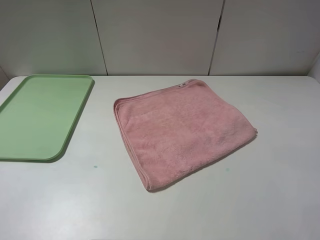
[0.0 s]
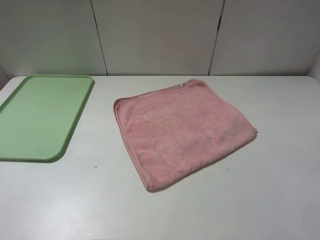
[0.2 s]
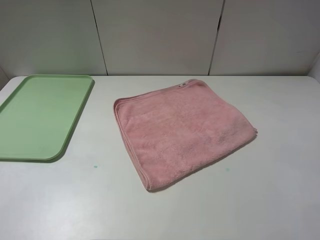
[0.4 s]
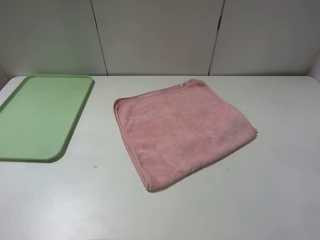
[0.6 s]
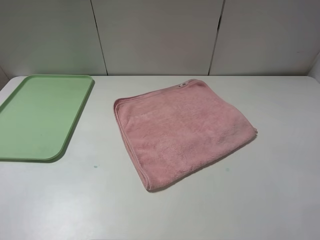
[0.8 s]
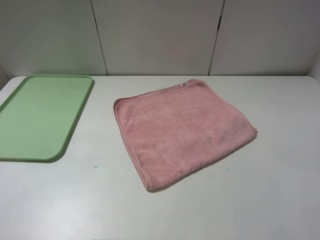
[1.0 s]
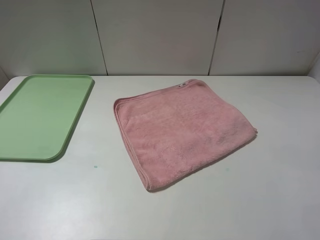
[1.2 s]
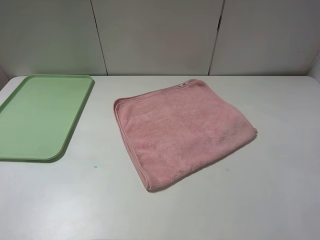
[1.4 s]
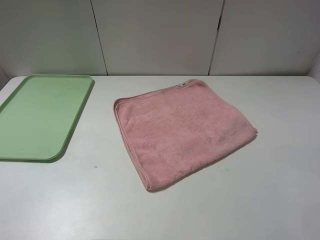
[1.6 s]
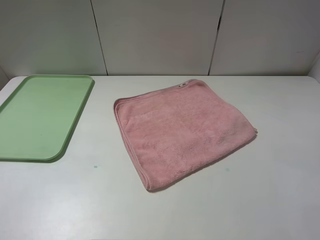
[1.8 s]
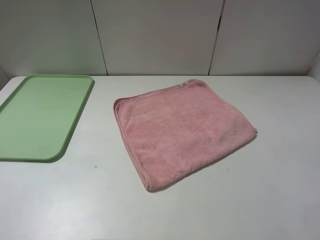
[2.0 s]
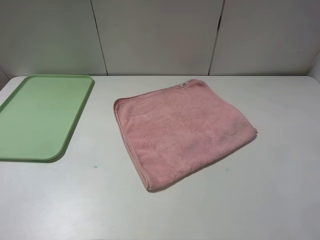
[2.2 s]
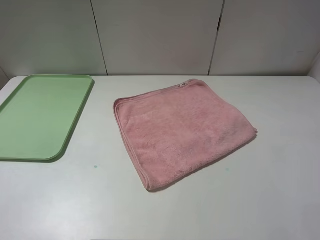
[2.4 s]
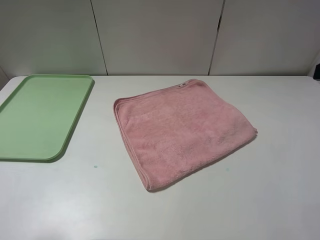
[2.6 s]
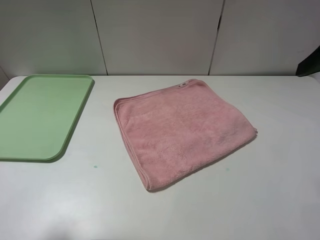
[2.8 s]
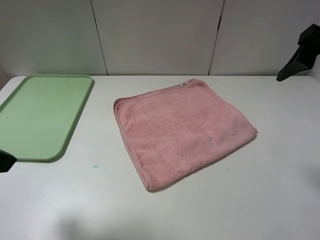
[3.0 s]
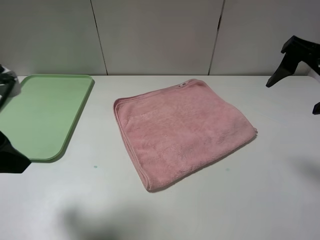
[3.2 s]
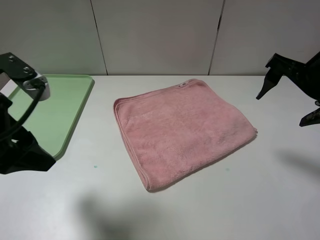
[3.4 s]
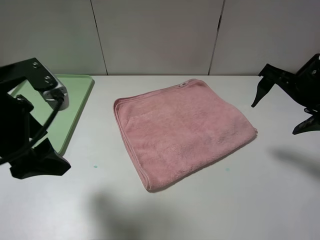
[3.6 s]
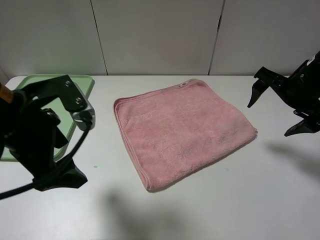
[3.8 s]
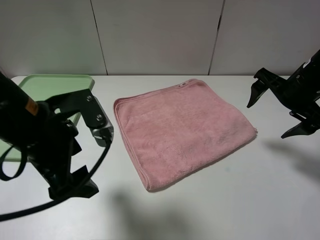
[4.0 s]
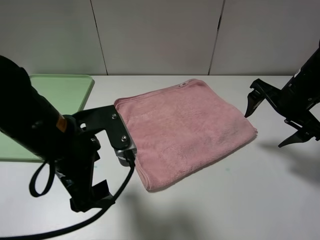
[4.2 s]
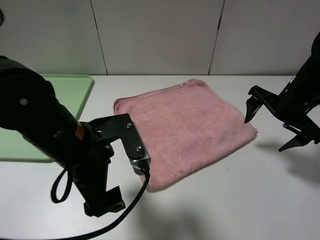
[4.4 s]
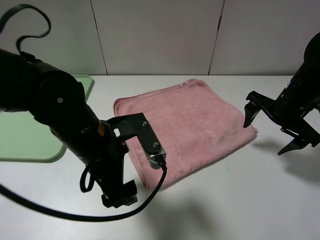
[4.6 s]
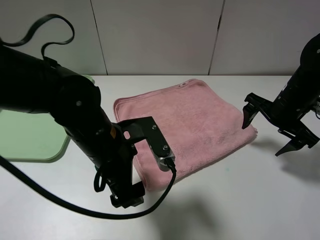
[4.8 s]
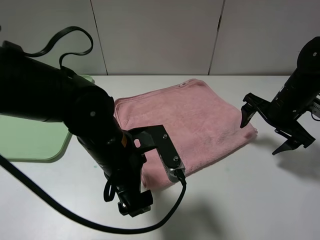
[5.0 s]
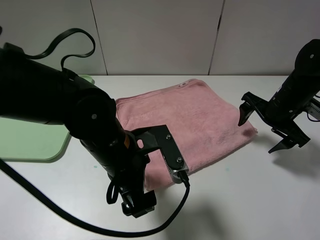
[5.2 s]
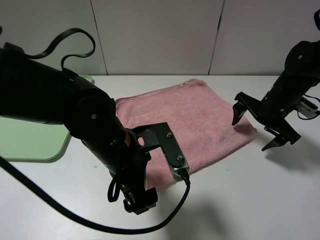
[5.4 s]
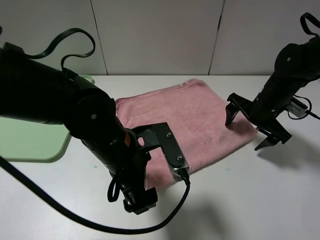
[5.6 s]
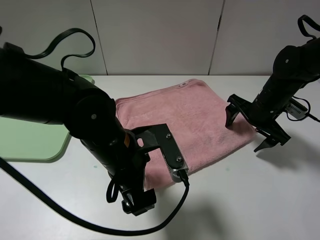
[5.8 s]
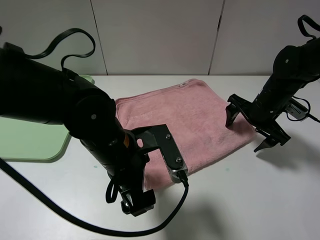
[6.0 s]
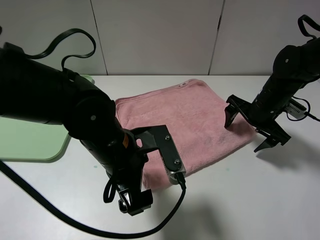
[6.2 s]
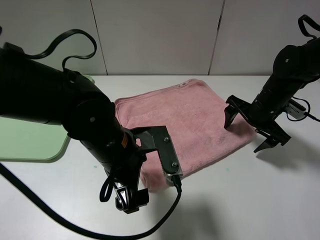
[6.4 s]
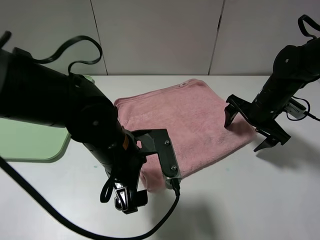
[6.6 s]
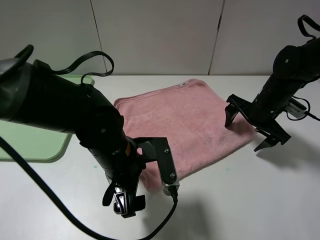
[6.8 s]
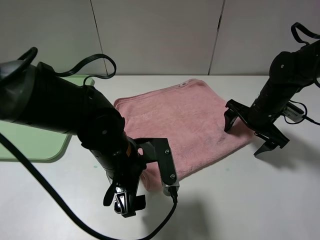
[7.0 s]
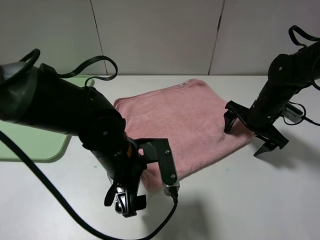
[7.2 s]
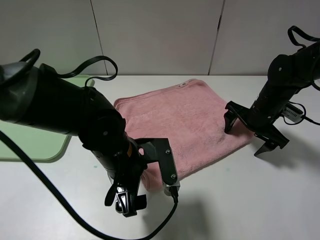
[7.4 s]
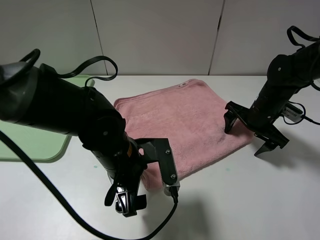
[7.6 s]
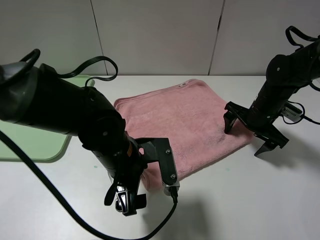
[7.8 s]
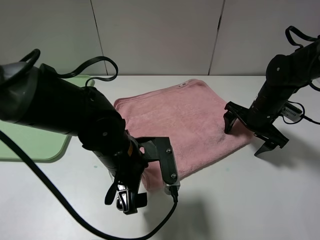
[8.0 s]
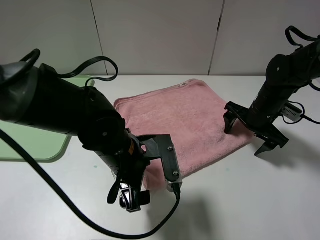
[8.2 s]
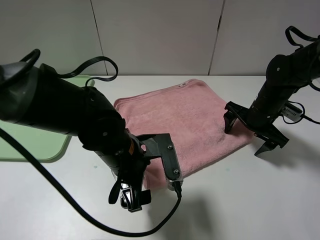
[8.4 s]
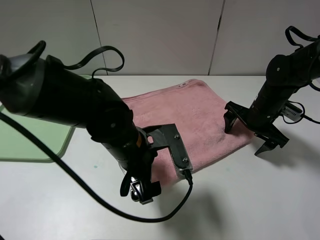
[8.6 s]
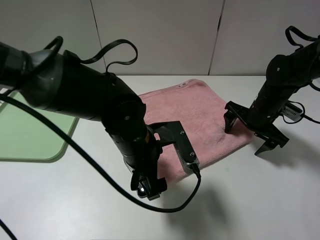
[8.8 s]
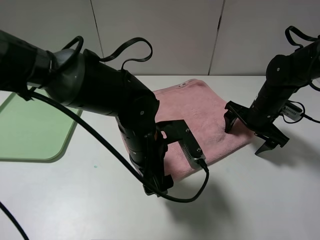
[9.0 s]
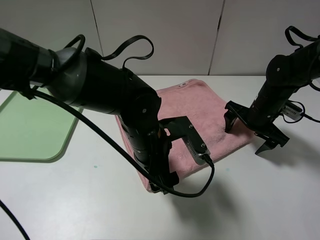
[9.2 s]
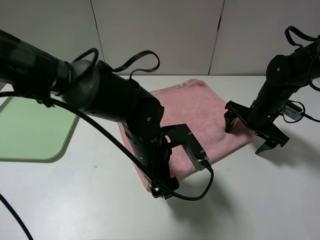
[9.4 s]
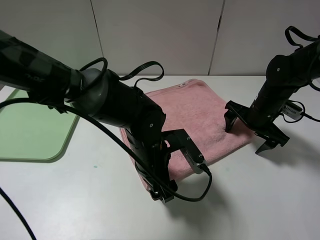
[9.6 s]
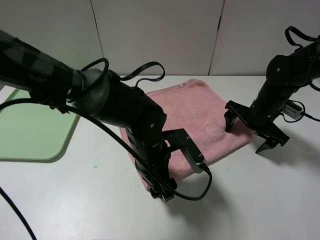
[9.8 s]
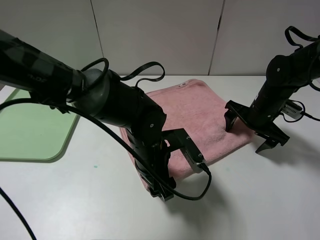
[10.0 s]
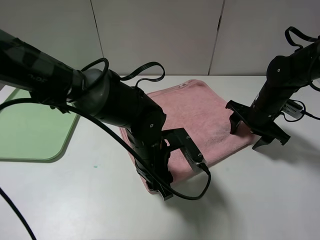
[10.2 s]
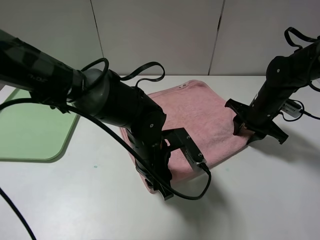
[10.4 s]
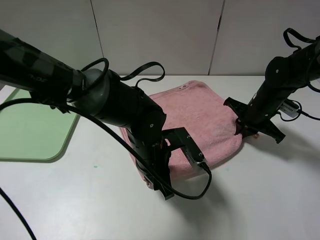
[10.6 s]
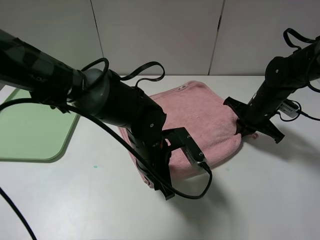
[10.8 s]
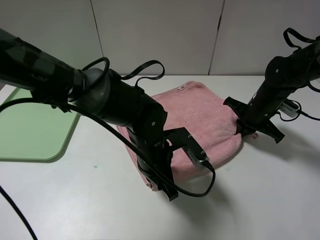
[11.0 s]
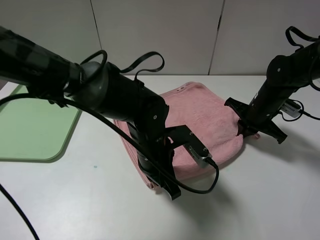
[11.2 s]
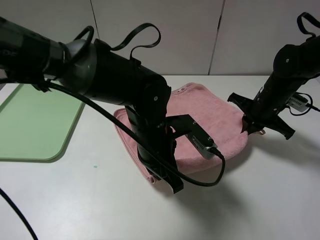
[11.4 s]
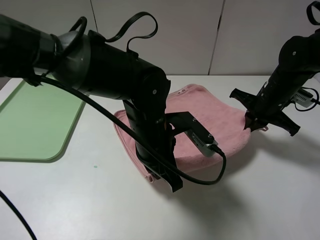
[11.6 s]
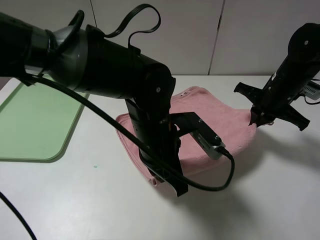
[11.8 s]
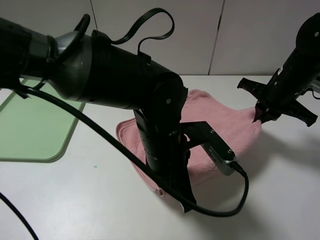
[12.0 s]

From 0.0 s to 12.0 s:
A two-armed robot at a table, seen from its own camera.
From 0.0 s to 1.6 s: Neither gripper changes place.
From 1.6 s to 3.0 s: The left gripper travels forward by about 15 cm, while the right gripper moves forward, approximately 20 cm.
From 3.0 s to 4.4 s: The left gripper heads to the right and downward, covering roughly 20 cm. Meanwhile the right gripper shifts about 15 cm downward and forward.
From 4.4 s to 6.0 s: The right gripper is displaced downward by about 5 cm. Meanwhile the left gripper shifts roughly 5 cm to the right.
From 6.0 s to 7.6 s: The grippers stay close to where they were, moving slightly.
From 7.6 s to 9.0 s: The left gripper ends up some 5 cm from where it was.
From 9.0 s to 10.4 s: The left gripper closes. Meanwhile the right gripper closes up.
From 10.4 s to 12.0 s: Both grippers move upward, approximately 10 cm. The right gripper closes its fingers. The left gripper closes.

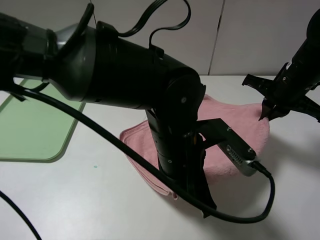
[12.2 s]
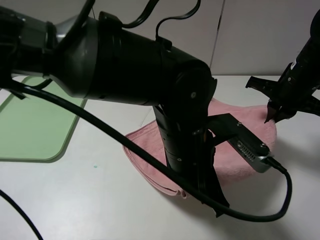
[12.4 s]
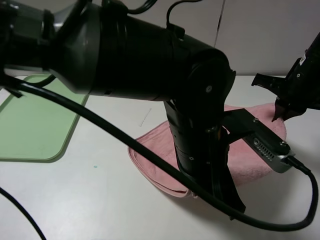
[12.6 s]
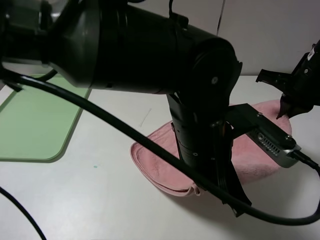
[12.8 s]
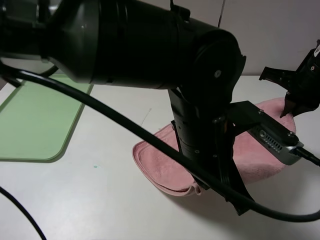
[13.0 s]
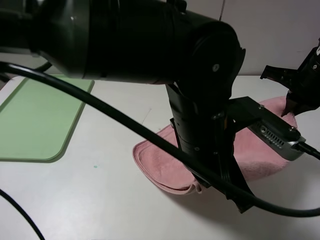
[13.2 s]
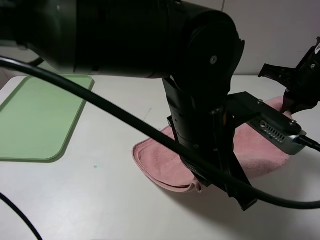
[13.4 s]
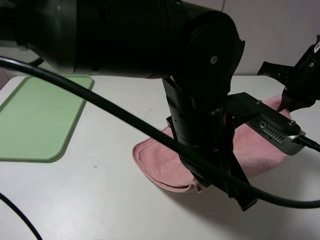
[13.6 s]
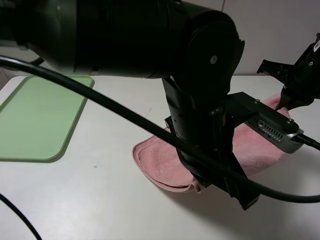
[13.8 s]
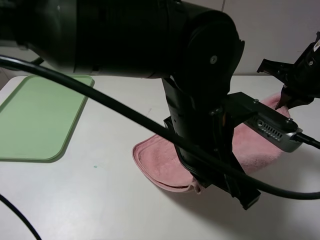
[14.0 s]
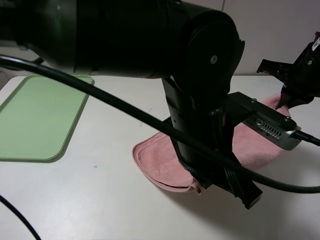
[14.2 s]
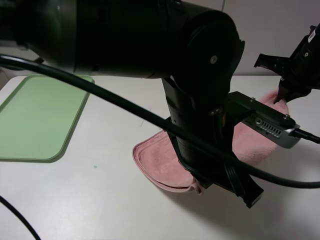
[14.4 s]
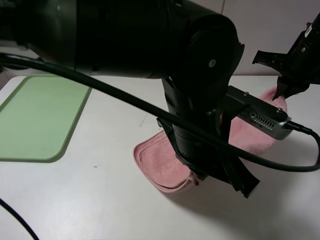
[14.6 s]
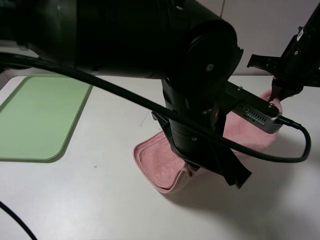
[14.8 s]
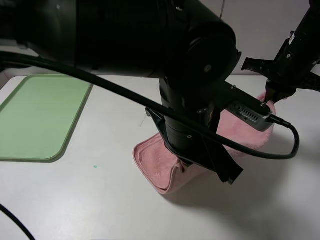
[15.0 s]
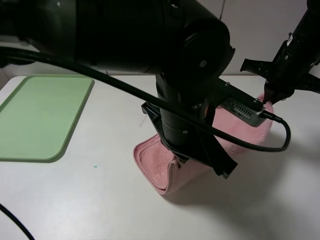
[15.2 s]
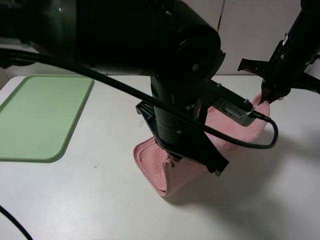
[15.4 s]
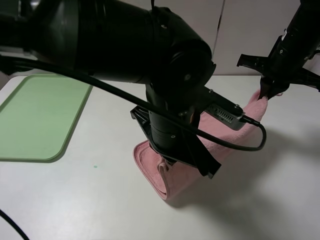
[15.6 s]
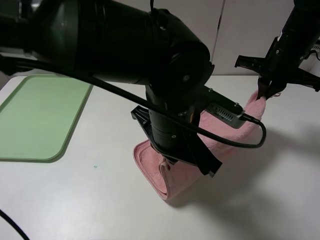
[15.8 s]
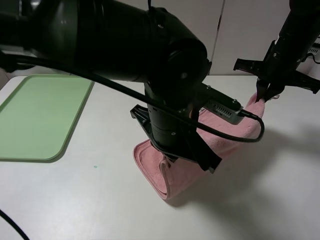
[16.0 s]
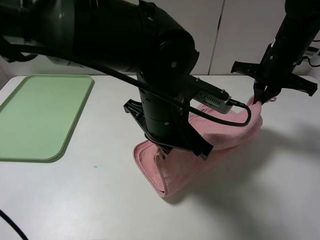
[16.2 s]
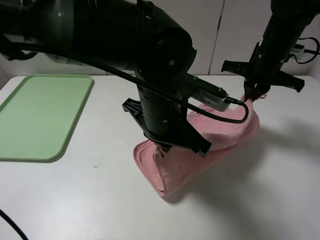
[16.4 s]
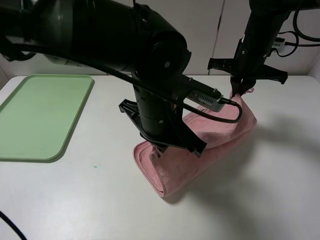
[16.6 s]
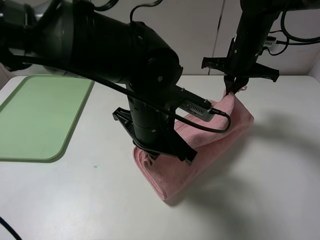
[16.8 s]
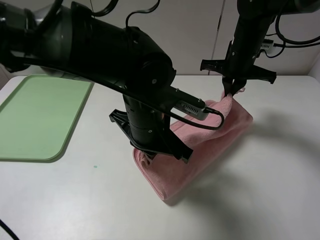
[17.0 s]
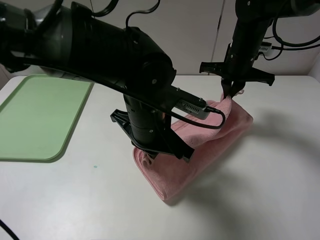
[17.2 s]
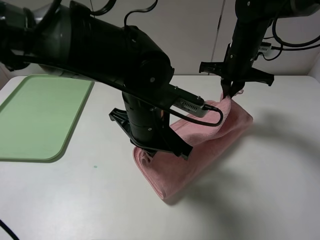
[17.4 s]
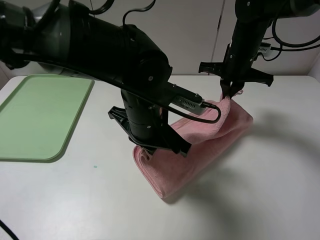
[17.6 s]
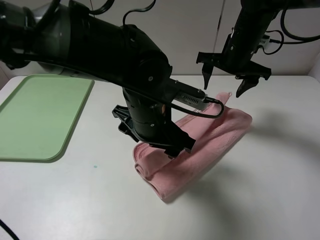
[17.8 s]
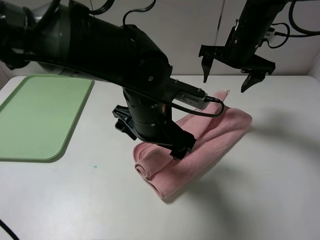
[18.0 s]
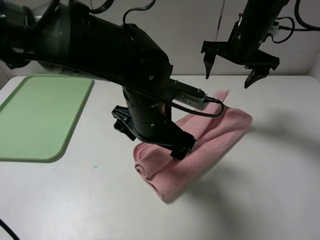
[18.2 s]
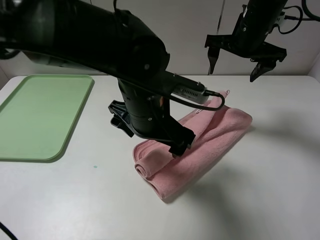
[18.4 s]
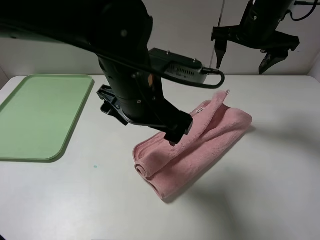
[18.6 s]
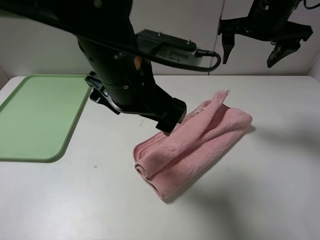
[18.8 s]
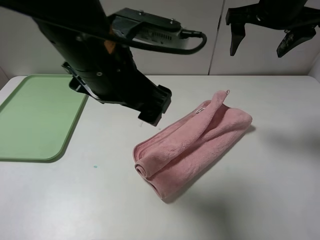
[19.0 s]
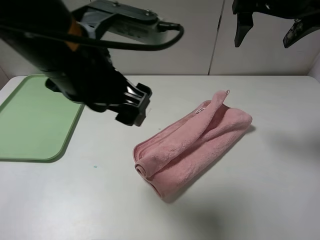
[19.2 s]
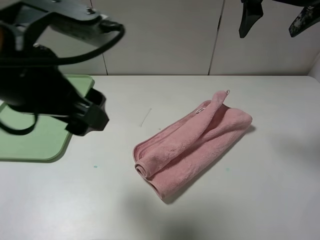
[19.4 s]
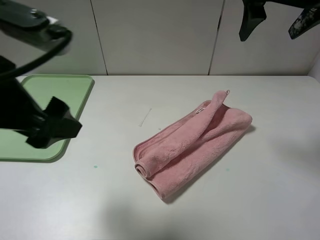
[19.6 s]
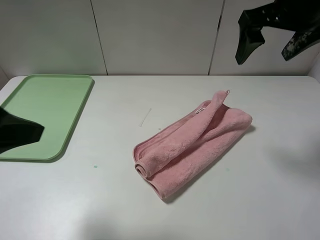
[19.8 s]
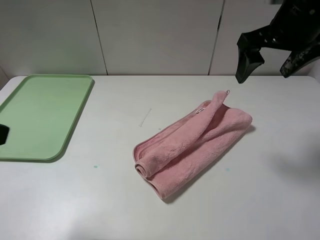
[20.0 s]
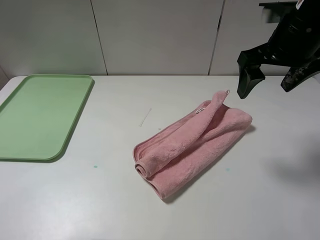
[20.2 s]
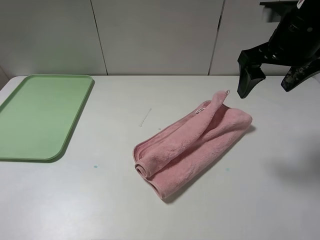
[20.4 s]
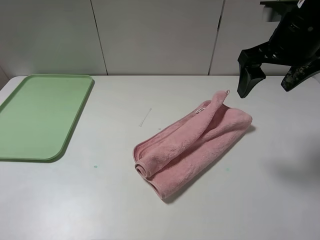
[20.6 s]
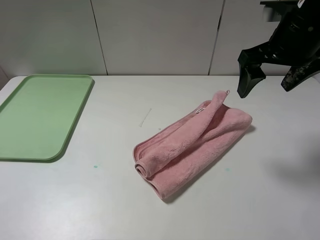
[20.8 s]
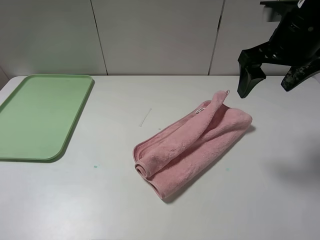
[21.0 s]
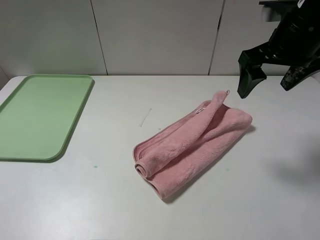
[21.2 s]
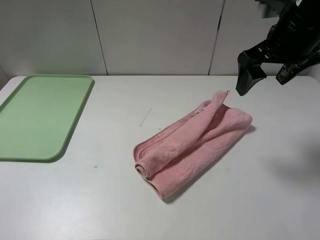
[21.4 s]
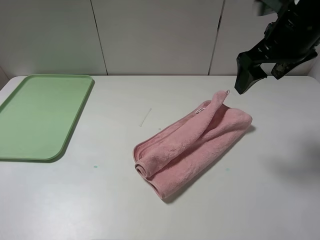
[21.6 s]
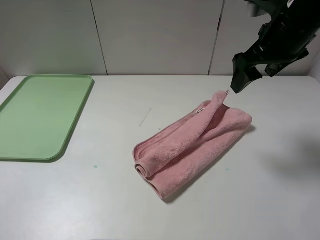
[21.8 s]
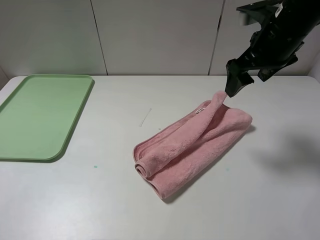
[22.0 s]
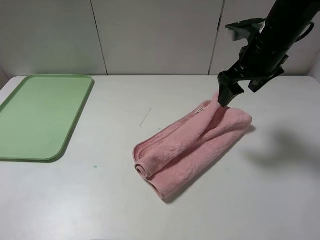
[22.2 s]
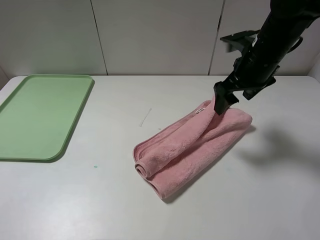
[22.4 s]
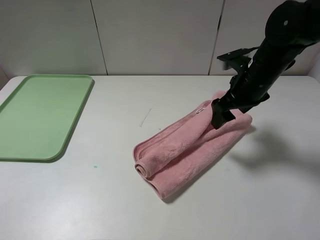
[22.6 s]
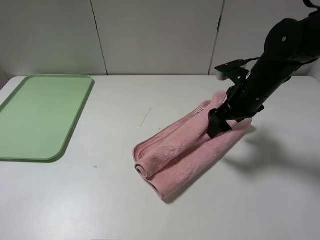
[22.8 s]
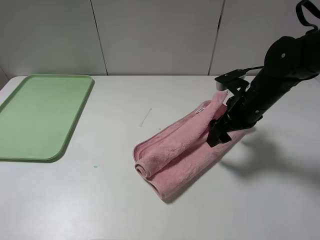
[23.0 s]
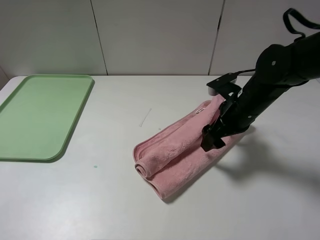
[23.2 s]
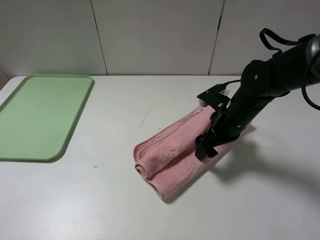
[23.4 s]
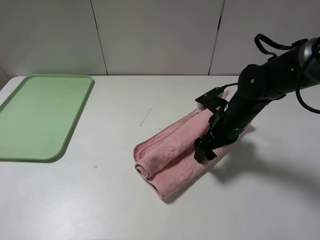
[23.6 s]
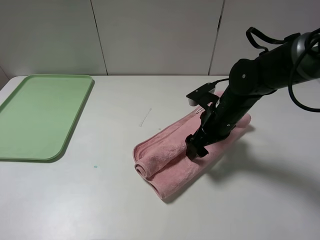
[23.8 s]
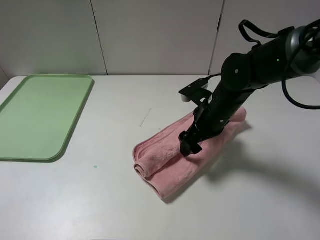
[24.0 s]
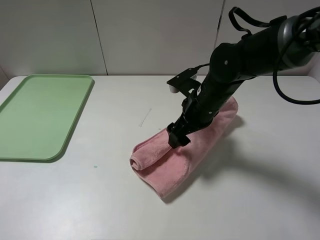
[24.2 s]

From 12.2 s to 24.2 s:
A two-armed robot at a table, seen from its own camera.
From 12.2 s to 13.8 s: The right gripper ends up approximately 5 cm from where it was, while the left gripper heads upward, covering roughly 5 cm.
From 15.2 s to 16.6 s: The left gripper moves some 5 cm. The right gripper goes some 10 cm to the left and forward.
From 16.6 s to 18.2 s: The right gripper opens; the left gripper opens its fingers.
From 18.2 s to 19.8 s: The left gripper travels to the left, upward and backward by roughly 30 cm, while the right gripper shifts roughly 15 cm upward and backward.
From 19.8 s to 21.2 s: The left gripper travels backward and to the left by approximately 15 cm.
From 21.2 s to 22.6 s: The right gripper shifts some 10 cm downward.
From 22.6 s to 24.2 s: The right gripper moves to the left, roughly 10 cm.
